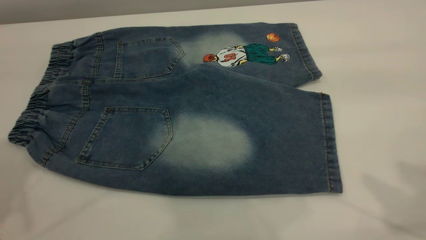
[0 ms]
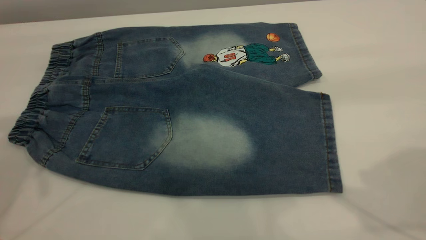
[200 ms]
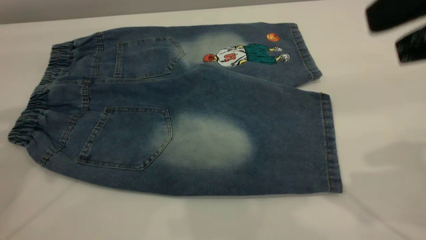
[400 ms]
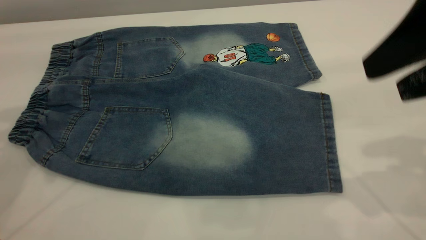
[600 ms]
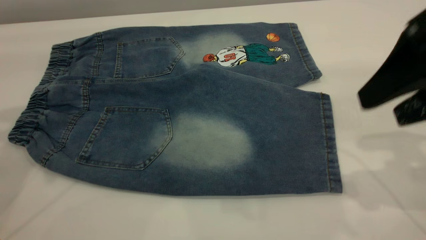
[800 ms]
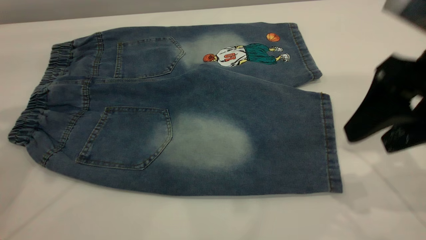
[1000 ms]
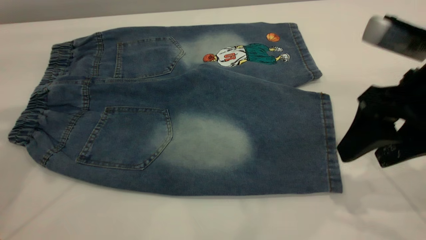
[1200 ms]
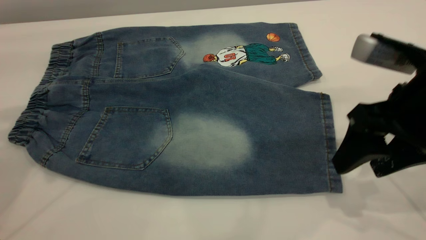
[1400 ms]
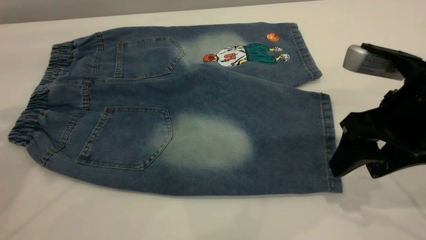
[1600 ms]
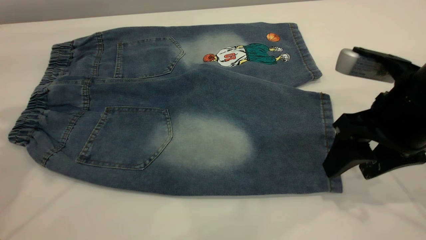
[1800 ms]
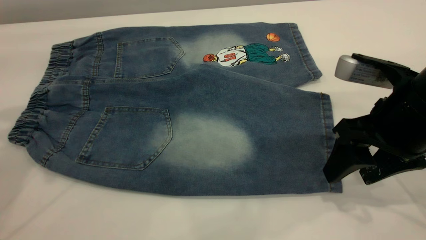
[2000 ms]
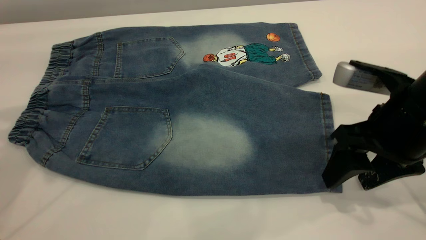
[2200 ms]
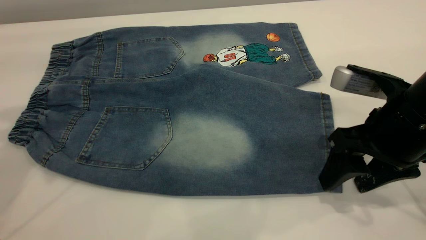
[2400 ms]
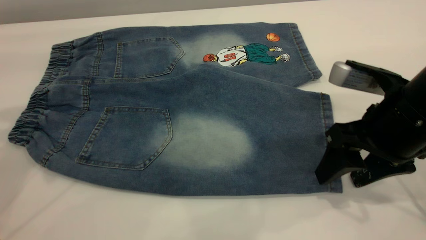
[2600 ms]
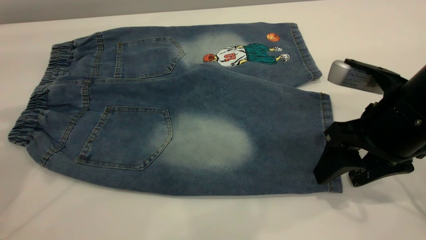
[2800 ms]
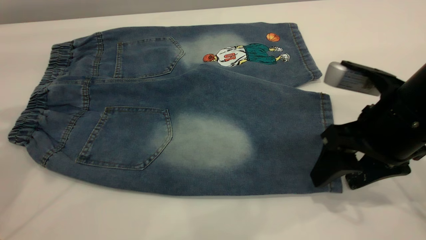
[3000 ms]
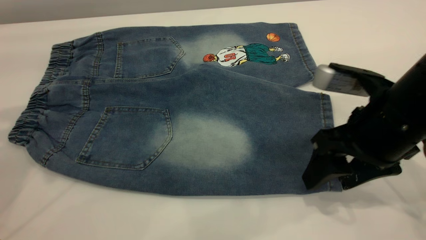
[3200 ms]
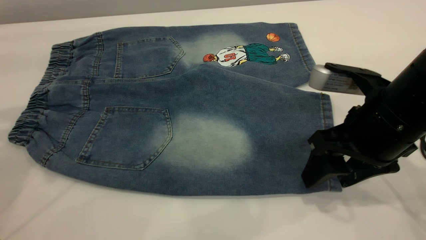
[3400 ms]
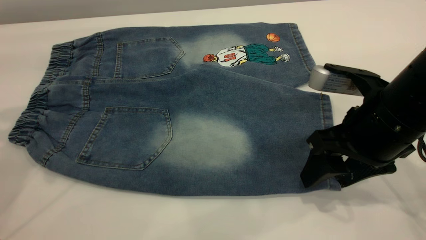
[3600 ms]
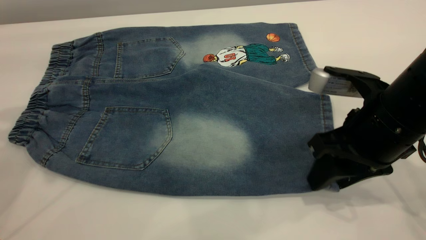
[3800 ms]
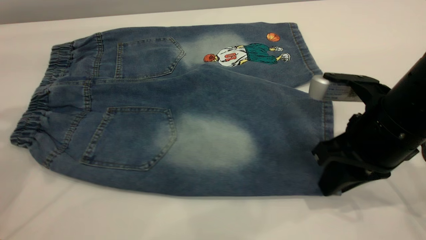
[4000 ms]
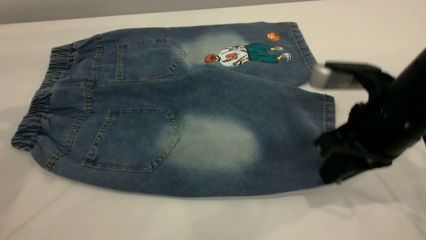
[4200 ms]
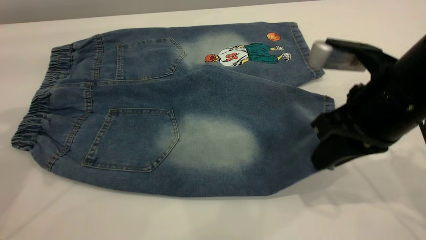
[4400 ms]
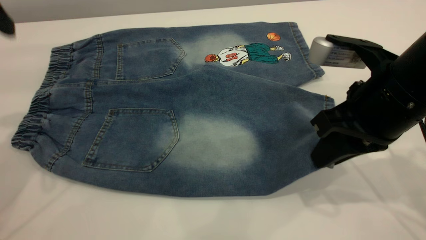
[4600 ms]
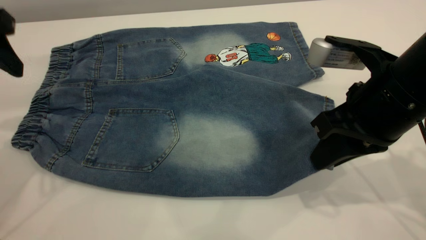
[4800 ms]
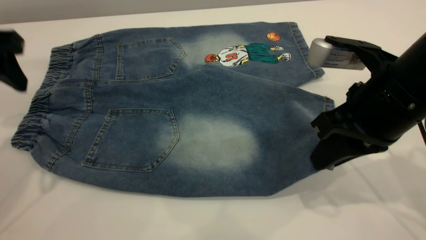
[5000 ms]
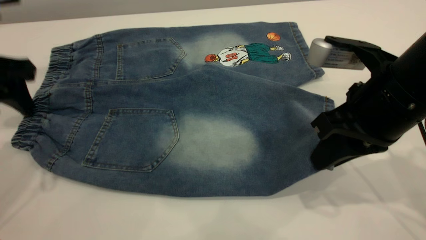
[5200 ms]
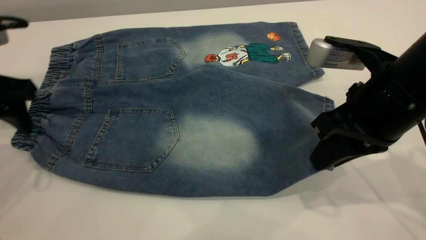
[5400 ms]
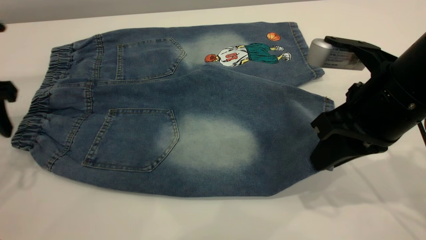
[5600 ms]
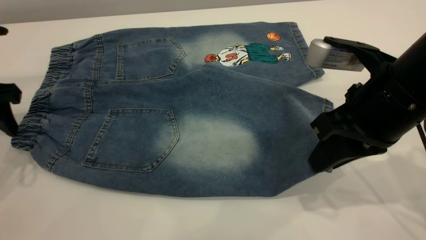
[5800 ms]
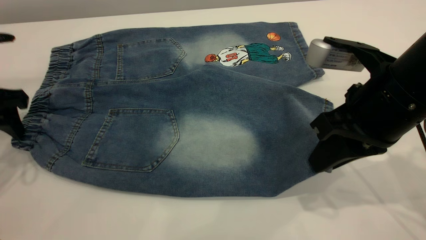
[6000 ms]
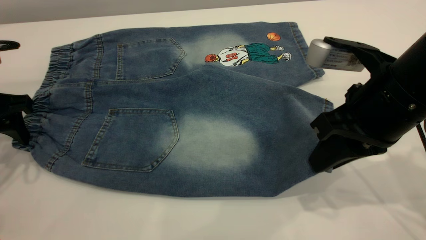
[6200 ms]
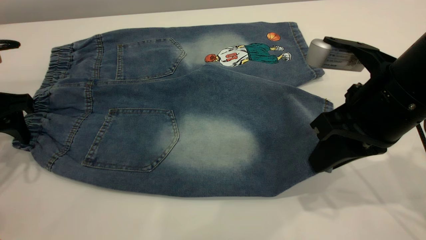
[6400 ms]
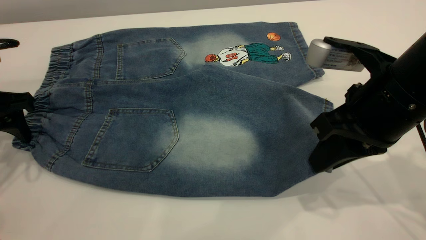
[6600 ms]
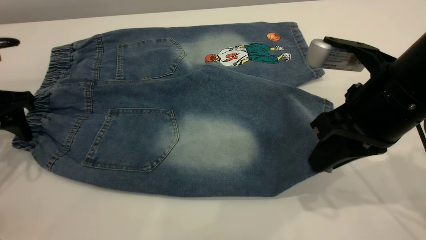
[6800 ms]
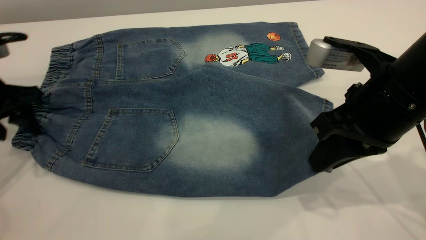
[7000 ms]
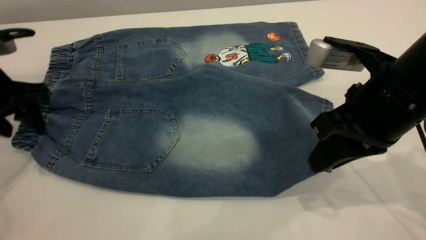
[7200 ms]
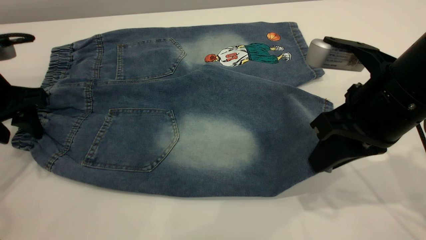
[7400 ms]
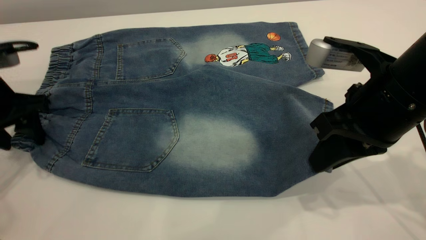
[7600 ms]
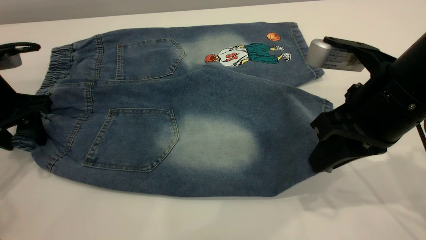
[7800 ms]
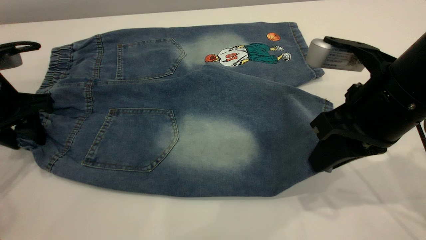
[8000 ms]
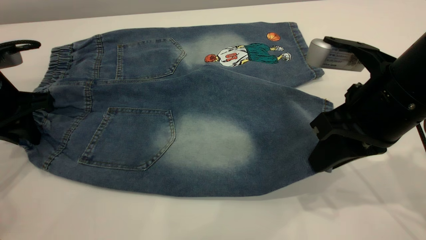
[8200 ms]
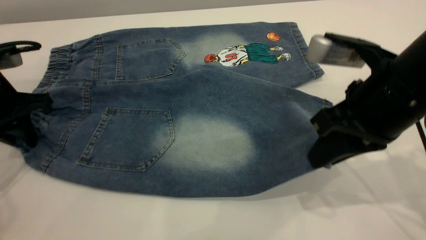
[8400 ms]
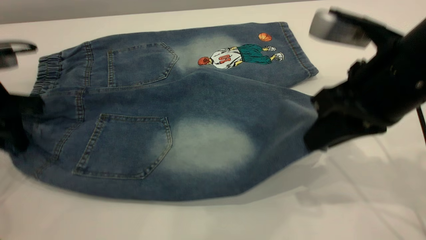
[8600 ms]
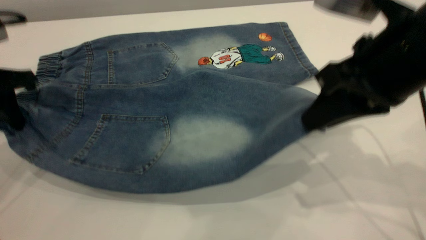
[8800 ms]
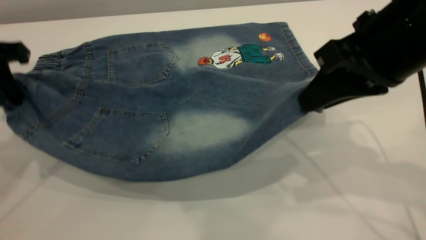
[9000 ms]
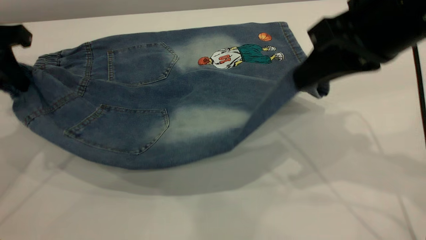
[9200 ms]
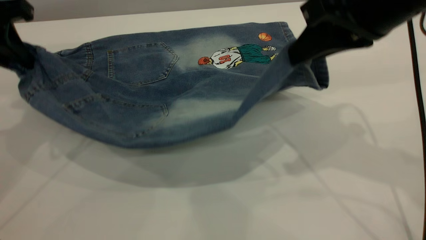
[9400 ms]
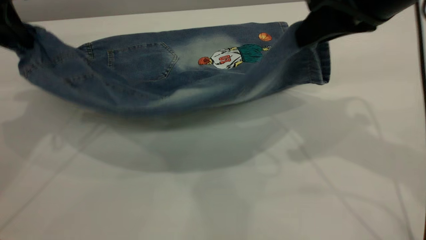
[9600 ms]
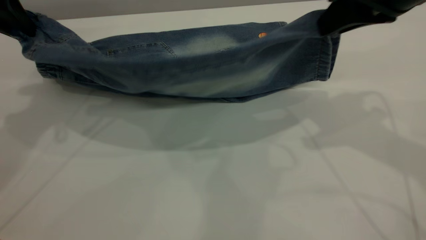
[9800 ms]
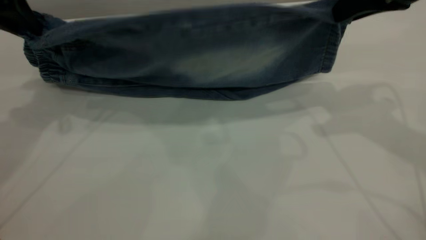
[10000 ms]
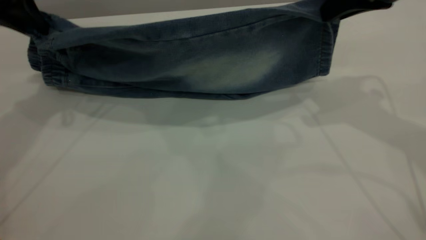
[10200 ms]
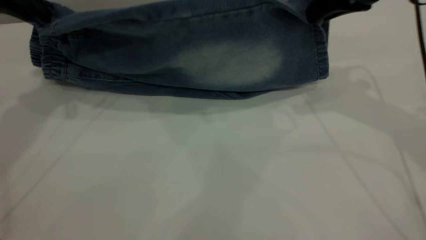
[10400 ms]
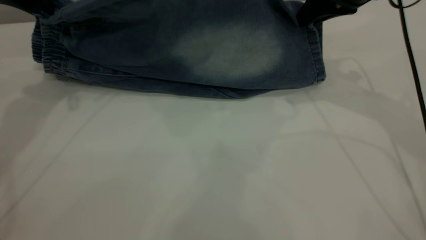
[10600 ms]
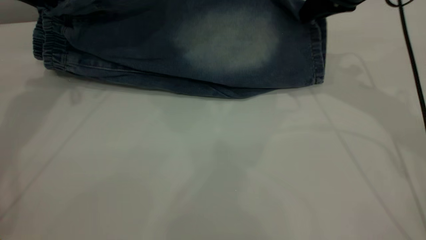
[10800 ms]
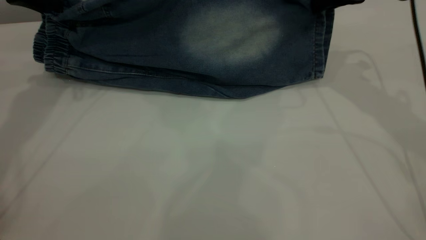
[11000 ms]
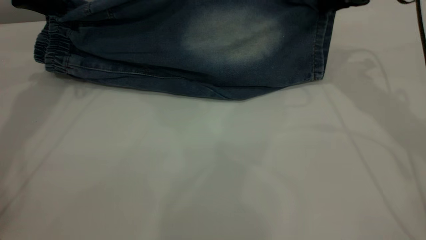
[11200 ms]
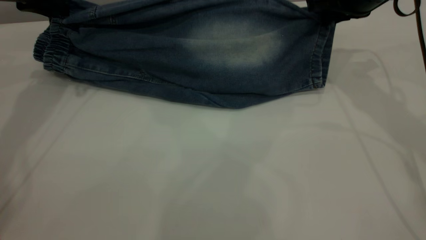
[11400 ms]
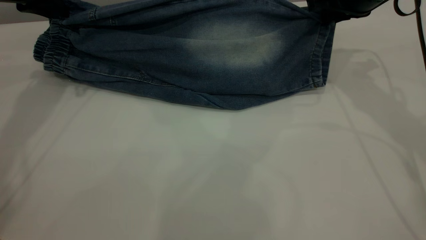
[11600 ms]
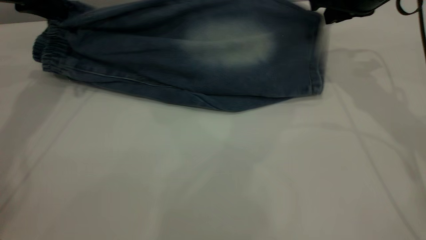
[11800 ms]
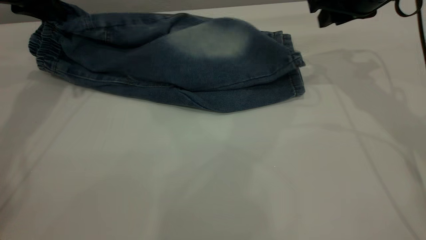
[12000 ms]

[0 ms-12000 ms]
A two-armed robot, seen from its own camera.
0 ms to 1600 ms: The left gripper is displaced forward by about 5 cm. The right gripper heads downward, covering some 20 cm.
1600 ms to 3000 ms: The grippers make only small movements.
3000 ms to 4400 ms: The right gripper closes its fingers.
4400 ms to 6000 ms: The left gripper heads downward, covering roughly 15 cm.
6000 ms to 7600 ms: The grippers make only small movements.
7600 ms to 9000 ms: The two grippers go approximately 10 cm upward. The left gripper closes up.
9000 ms to 10400 ms: Both grippers travel together forward, about 10 cm.
10400 ms to 12000 ms: The left gripper moves some 5 cm; the right gripper ends up approximately 5 cm from where it was, and opens.

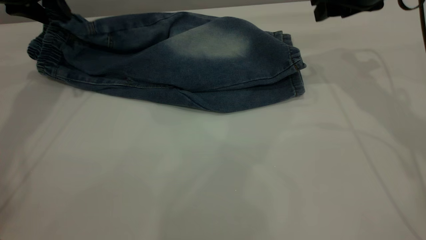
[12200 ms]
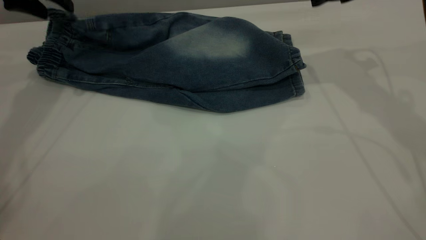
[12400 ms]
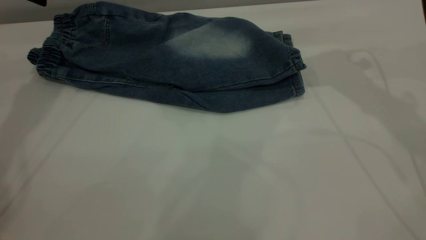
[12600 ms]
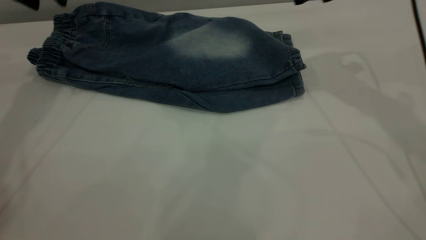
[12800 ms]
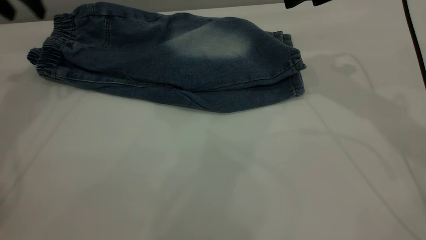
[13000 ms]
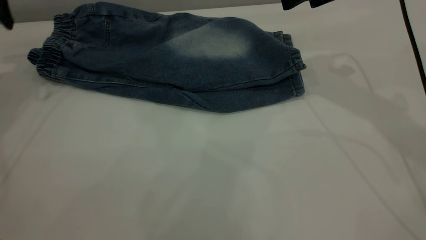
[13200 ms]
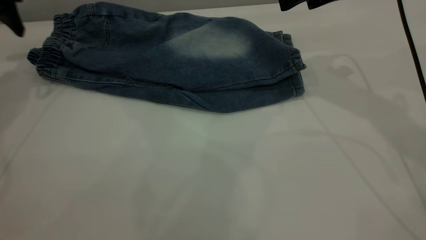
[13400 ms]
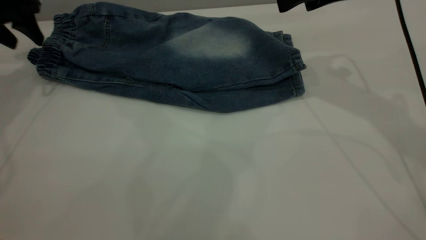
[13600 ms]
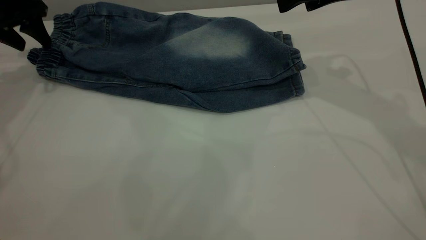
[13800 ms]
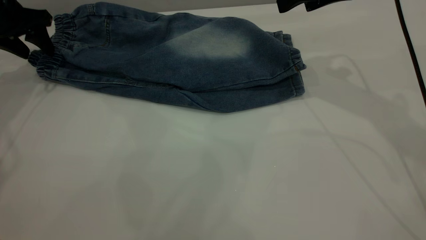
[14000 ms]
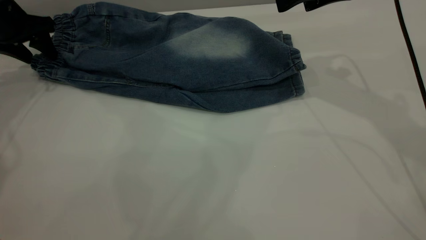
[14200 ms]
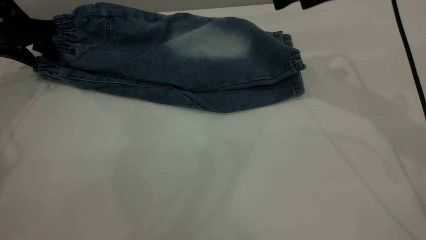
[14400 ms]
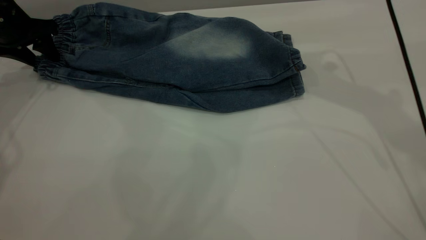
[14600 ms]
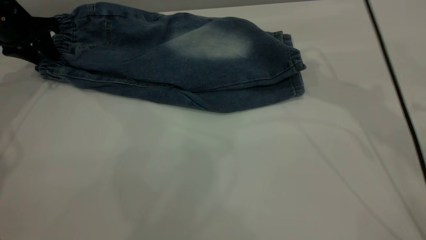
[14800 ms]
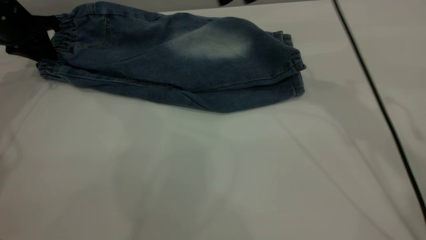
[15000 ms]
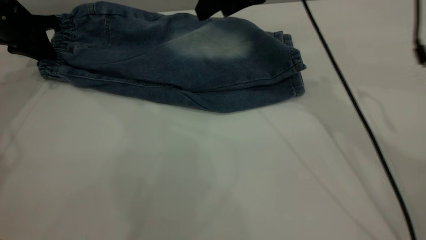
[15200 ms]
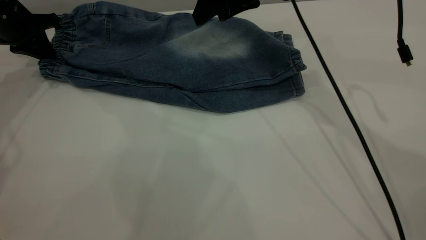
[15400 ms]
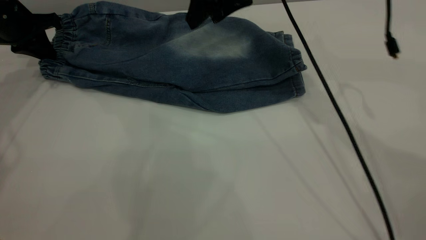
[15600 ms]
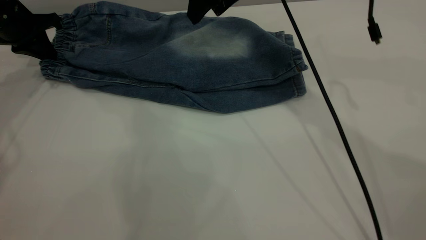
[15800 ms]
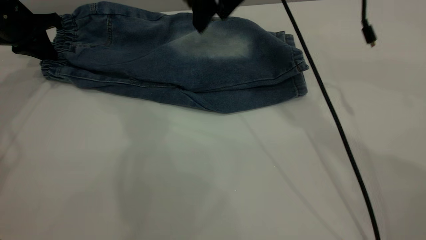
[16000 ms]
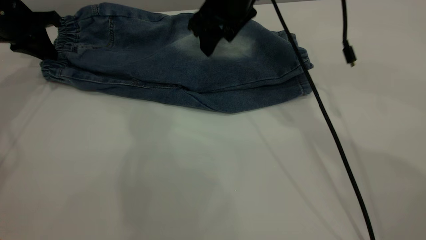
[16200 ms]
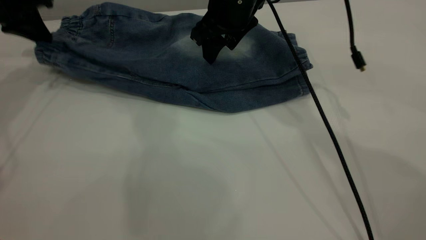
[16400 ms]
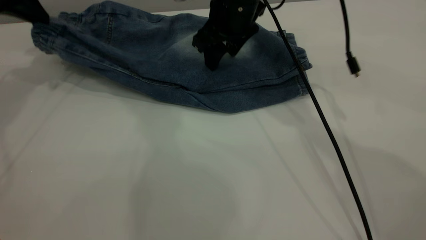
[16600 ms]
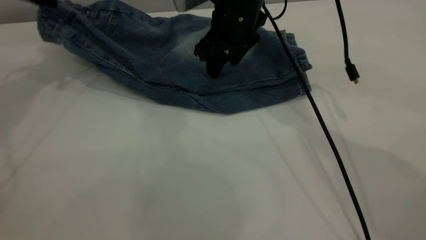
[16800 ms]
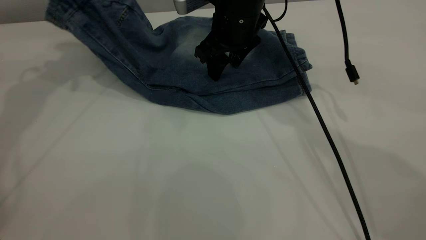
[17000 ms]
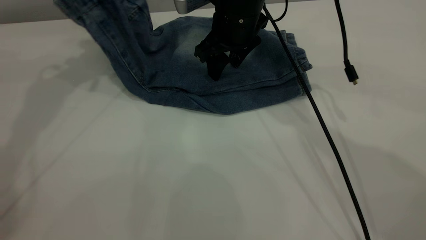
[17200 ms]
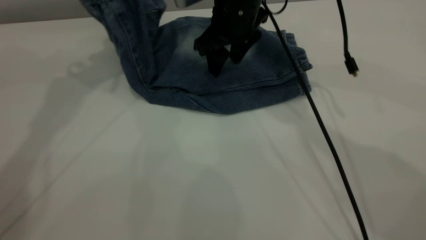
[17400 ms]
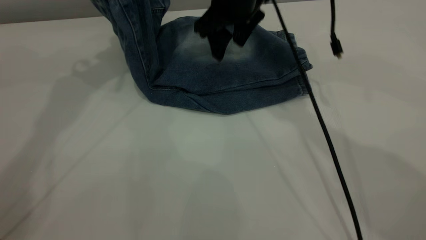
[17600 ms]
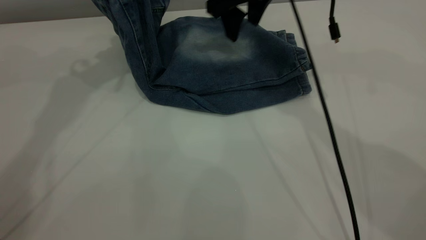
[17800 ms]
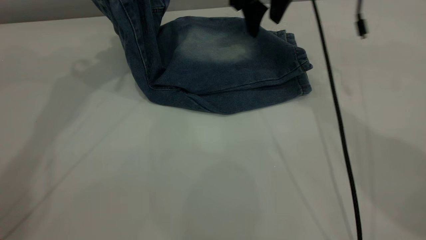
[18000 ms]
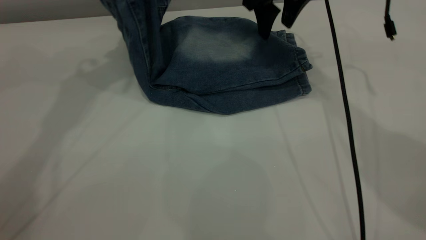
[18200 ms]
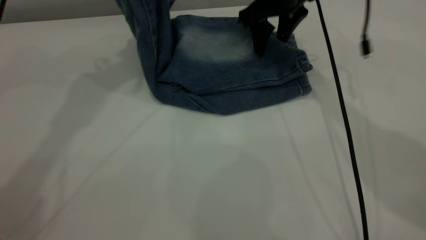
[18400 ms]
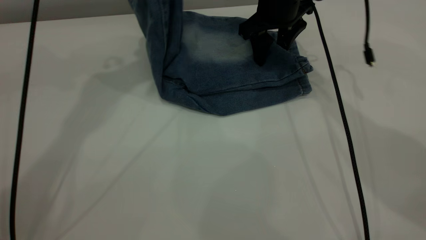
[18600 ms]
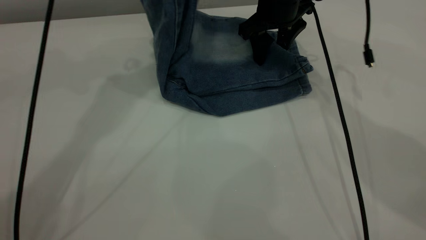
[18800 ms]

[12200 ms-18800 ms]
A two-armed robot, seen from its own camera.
12200 ms to 13800 ms: The left gripper travels to the left by some 5 cm, while the right gripper moves some 5 cm.
13800 ms to 15400 ms: The left gripper closes. The right gripper shifts about 15 cm to the left and forward.
15400 ms to 17200 ms: The left gripper heads upward and to the right, covering roughly 20 cm. The right gripper is displaced downward by about 5 cm.
17200 ms to 18800 ms: The left gripper heads to the right and upward, covering roughly 15 cm; the right gripper moves to the right, about 5 cm.
